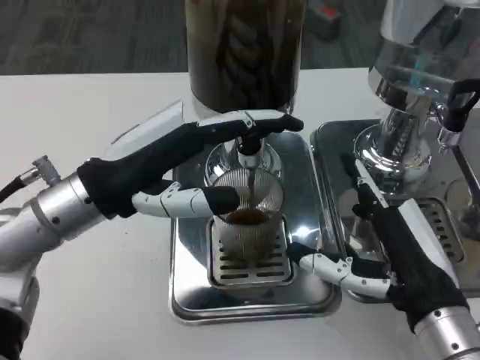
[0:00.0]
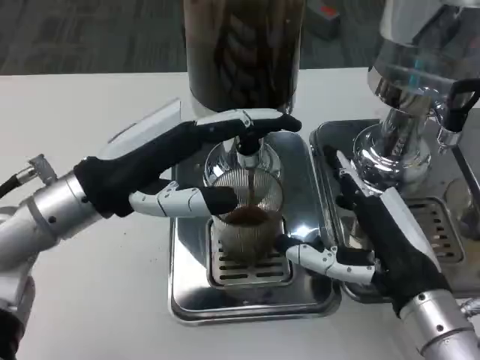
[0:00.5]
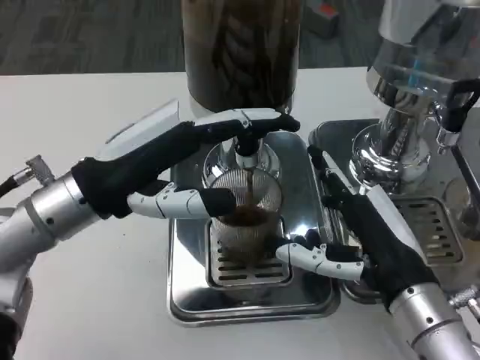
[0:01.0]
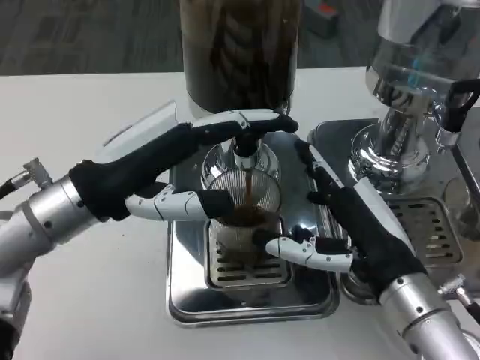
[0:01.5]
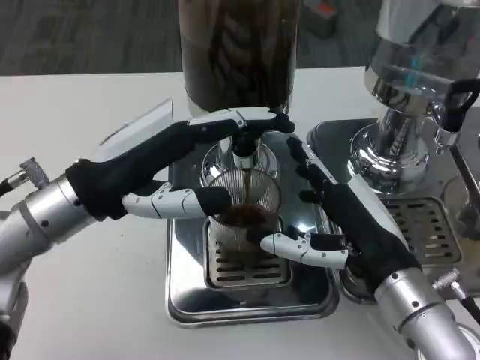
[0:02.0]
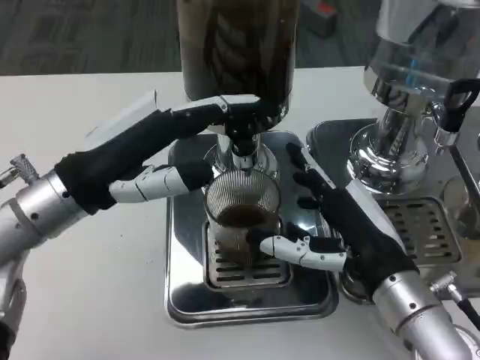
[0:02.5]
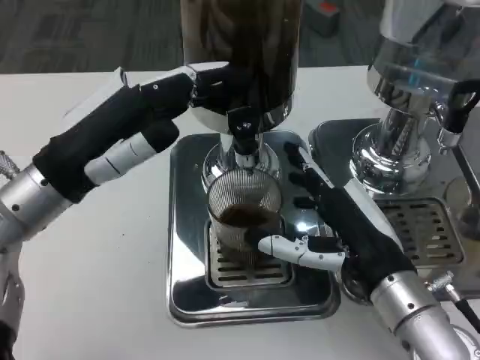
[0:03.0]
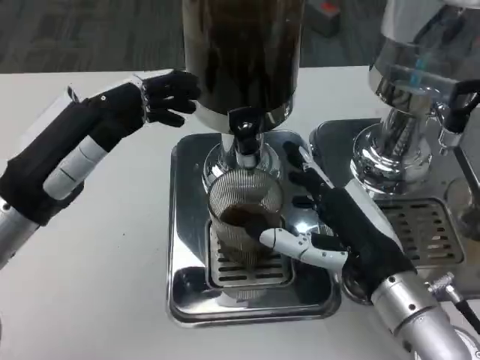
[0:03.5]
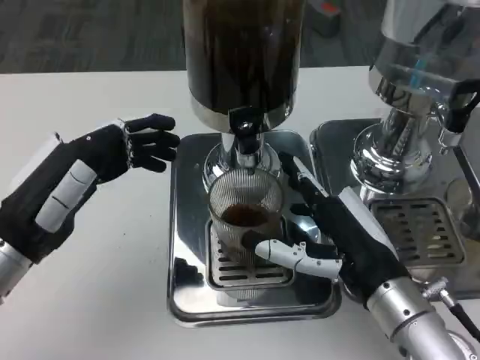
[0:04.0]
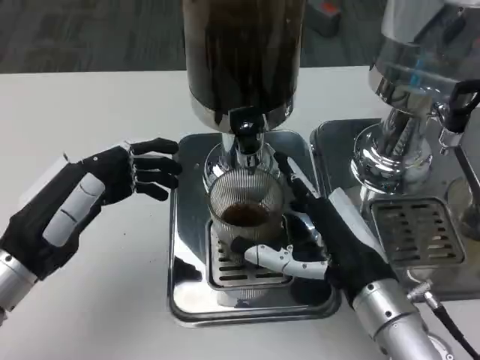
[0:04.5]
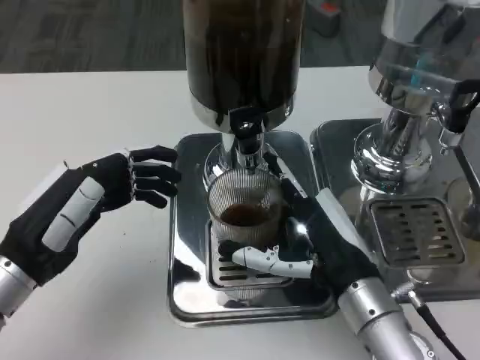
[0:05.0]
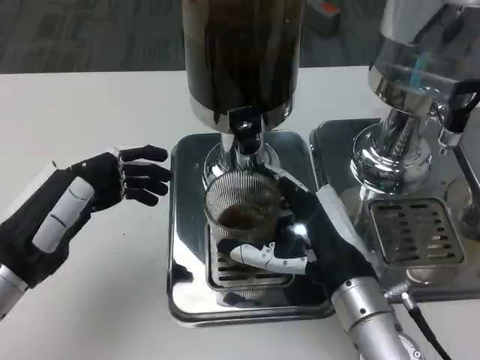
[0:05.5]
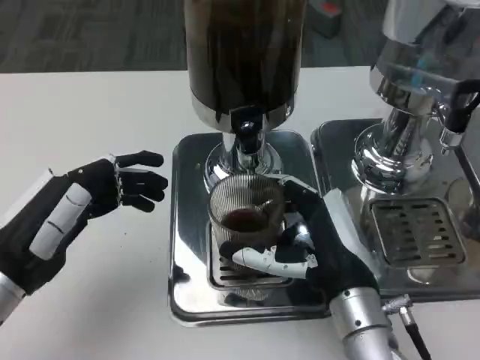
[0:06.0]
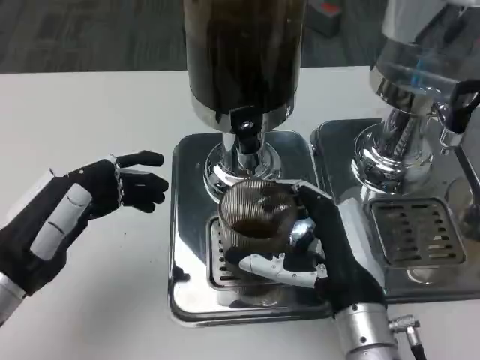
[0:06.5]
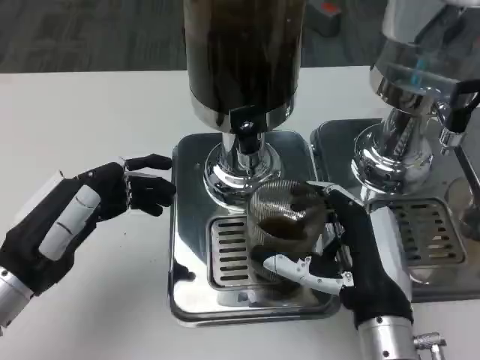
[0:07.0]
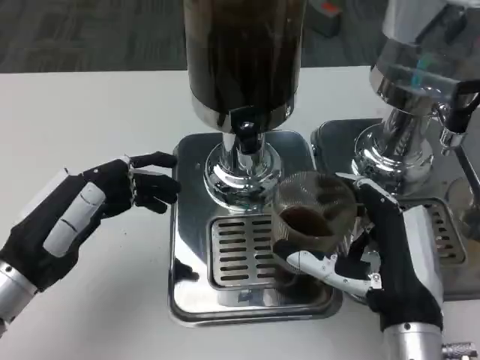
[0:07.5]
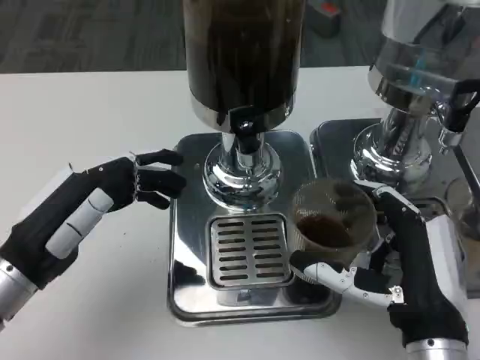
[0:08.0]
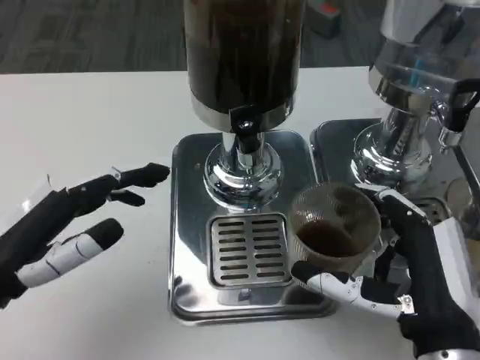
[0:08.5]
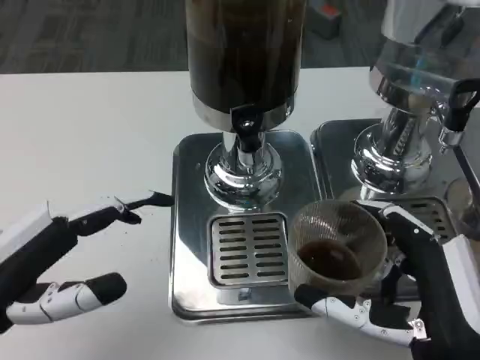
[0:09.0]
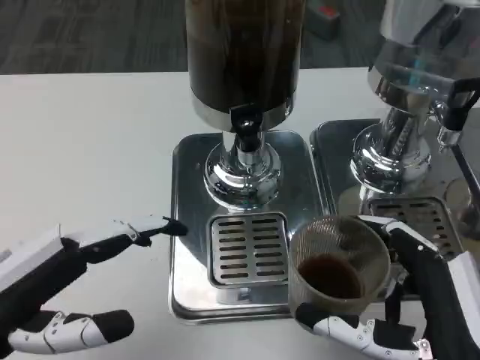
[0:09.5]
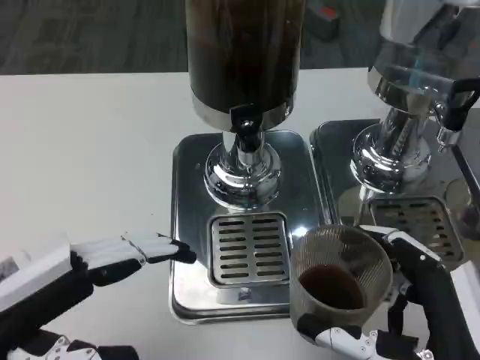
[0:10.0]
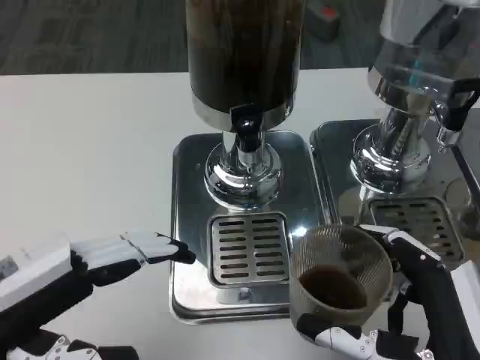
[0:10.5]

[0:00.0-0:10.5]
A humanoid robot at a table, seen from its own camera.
Task of the whole recording: Grasp the cup under the faucet to collect the drink, then remove the cup.
0:02.0 to 0:04.0: The left hand shifts approximately 5 cm to the left and downward.
0:04.0 to 0:06.5: The right hand shifts by about 5 cm.
0:06.5 to 0:08.5: The right hand heads backward, covering about 5 cm.
0:08.5 to 0:10.5: The right hand shifts about 5 cm backward.

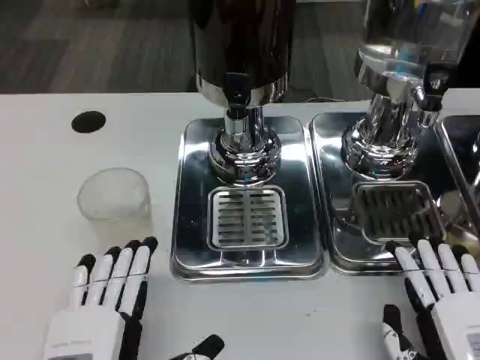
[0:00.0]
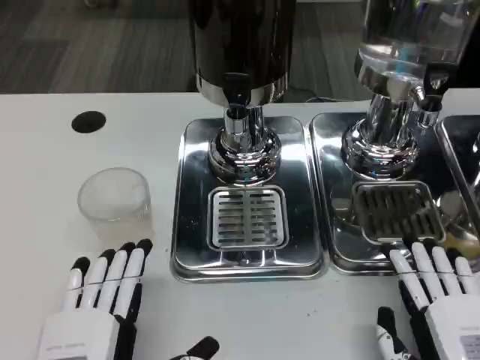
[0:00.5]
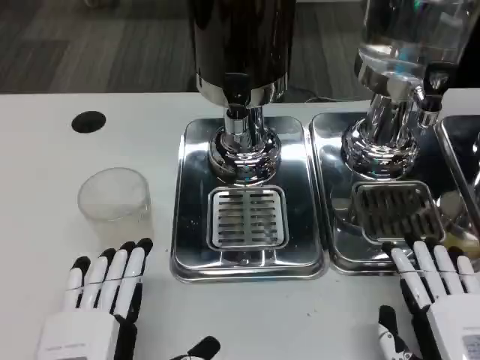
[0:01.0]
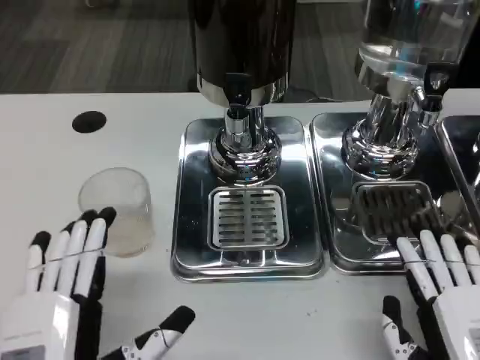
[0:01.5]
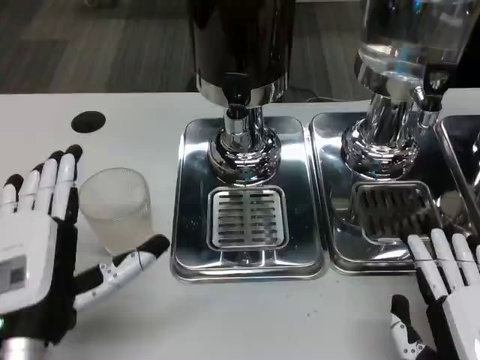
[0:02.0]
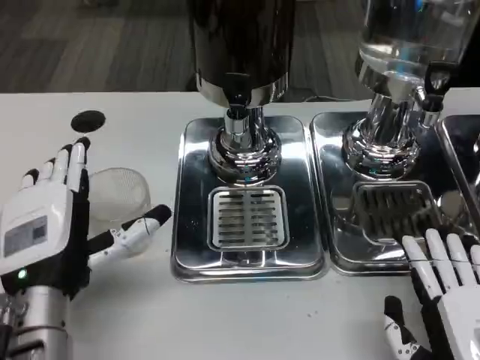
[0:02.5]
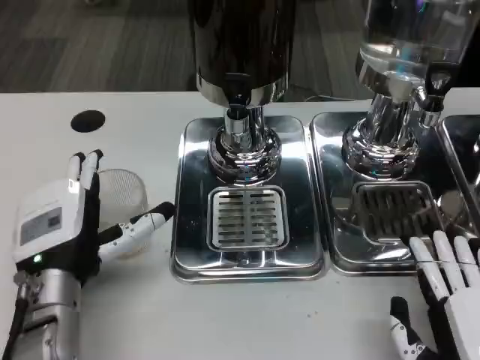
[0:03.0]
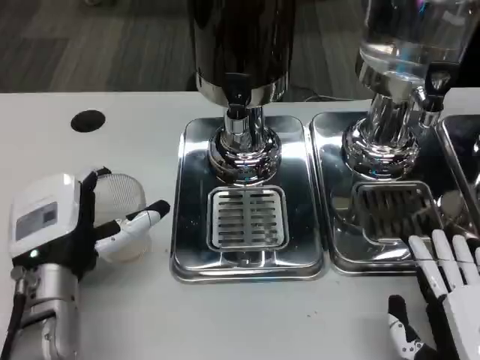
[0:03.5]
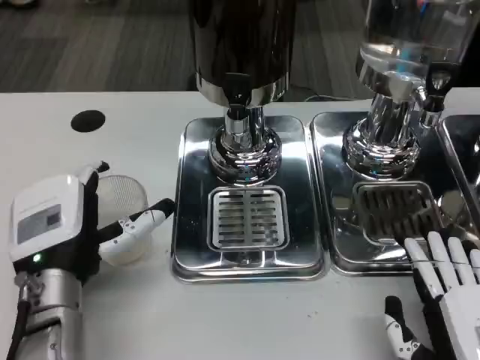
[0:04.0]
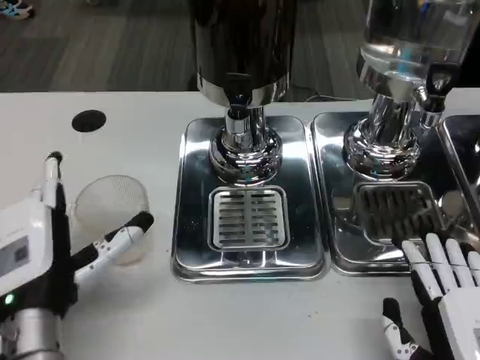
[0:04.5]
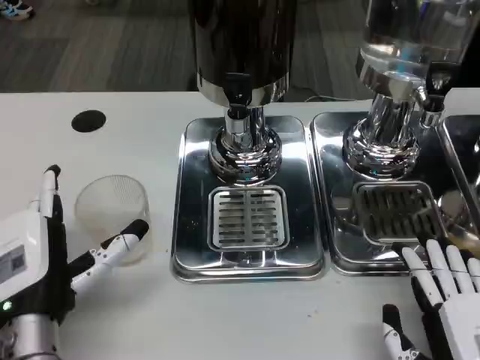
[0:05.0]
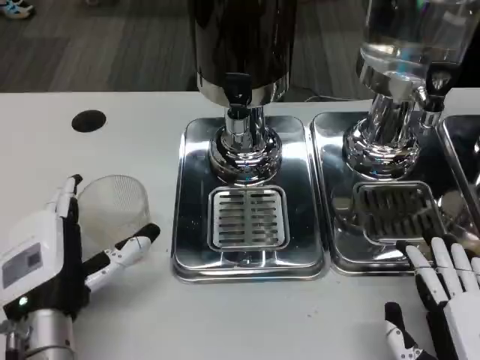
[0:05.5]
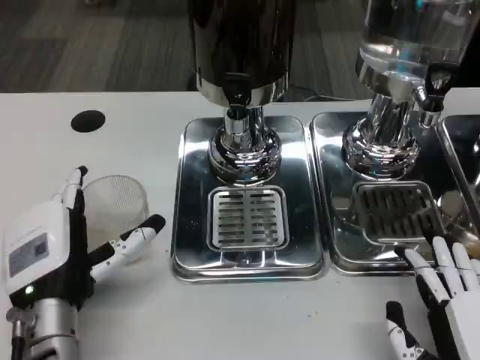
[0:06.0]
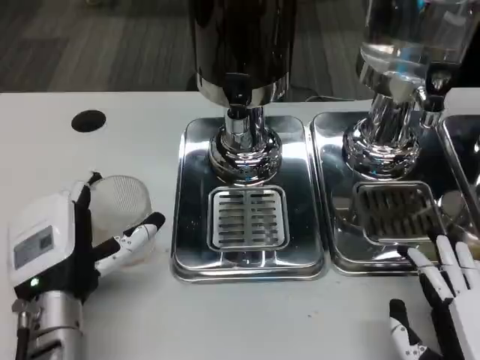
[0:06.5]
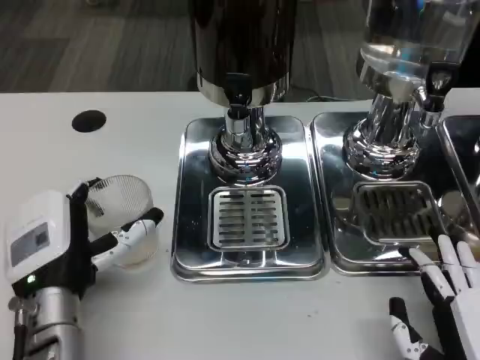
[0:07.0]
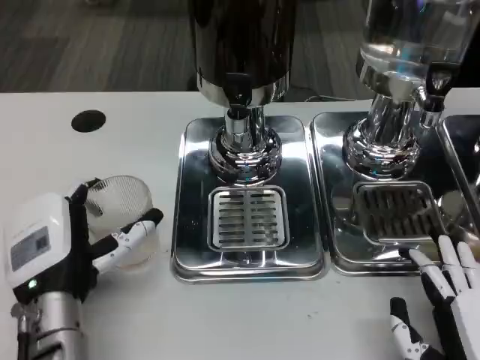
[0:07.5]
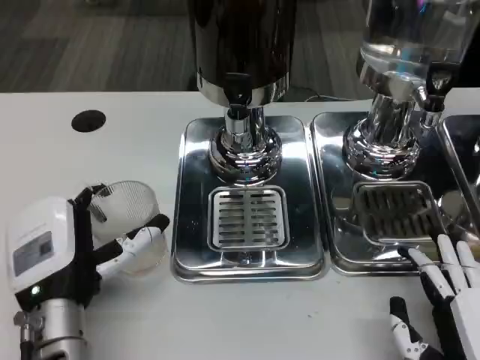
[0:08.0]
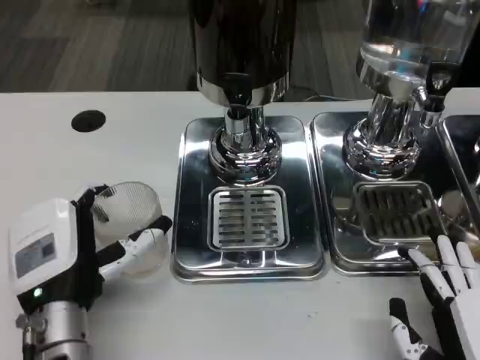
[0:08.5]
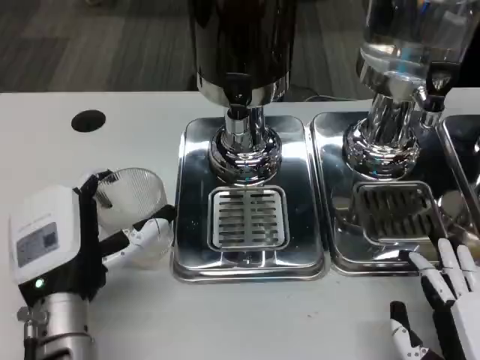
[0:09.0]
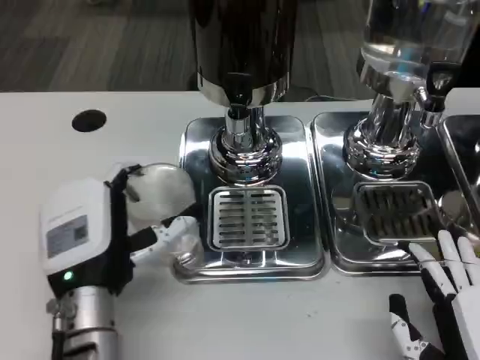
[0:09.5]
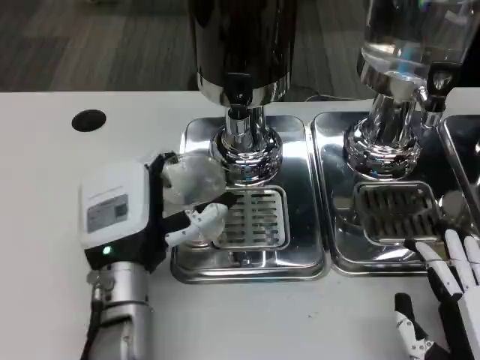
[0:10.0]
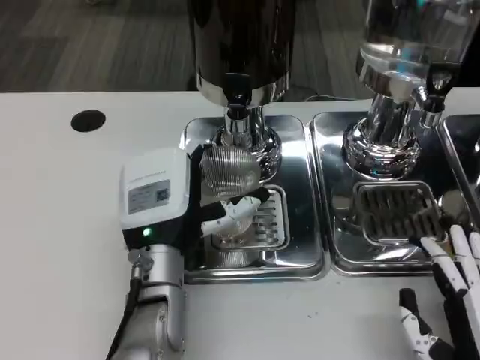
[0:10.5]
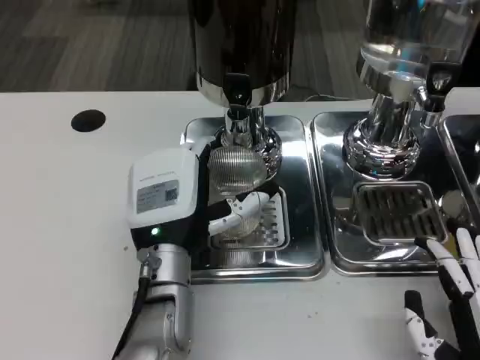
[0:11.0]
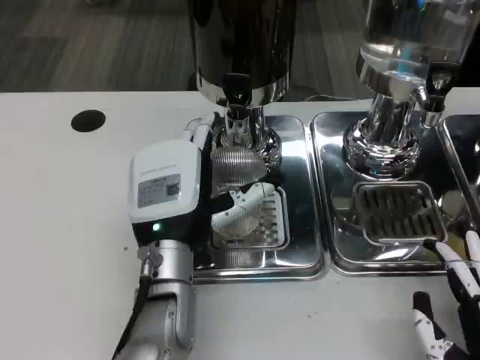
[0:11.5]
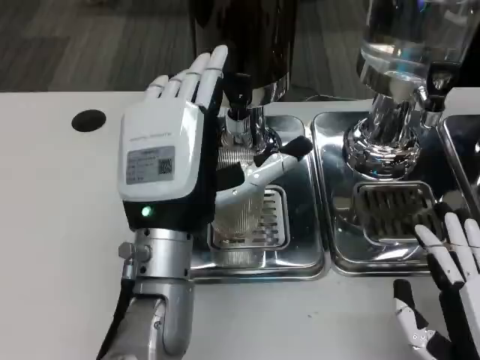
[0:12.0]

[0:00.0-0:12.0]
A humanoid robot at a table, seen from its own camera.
Task of the whole recording: Grasp the cup under the faucet to collect the drink, then remove the cup.
0:00.0 to 0:02.0: The left hand is displaced forward by roughly 5 cm.
0:02.0 to 0:04.0: The left hand is displaced forward by some 5 cm.
0:04.0 to 0:06.0: The hands stay close to where they were, moving slightly.
0:06.0 to 0:08.0: Neither hand changes place.
0:08.0 to 0:10.0: The left hand shifts approximately 5 cm to the right.
0:10.0 to 0:12.0: The left hand heads upward, covering some 5 cm.

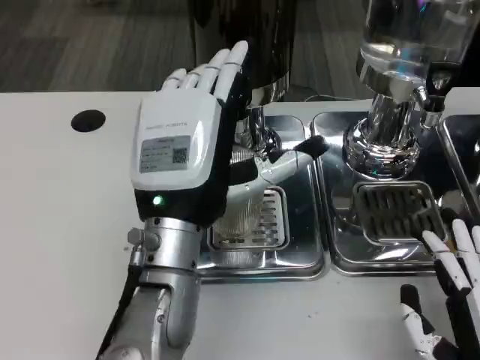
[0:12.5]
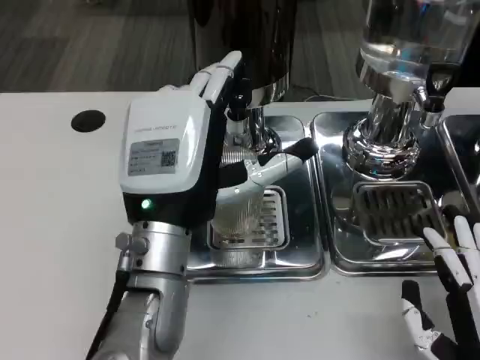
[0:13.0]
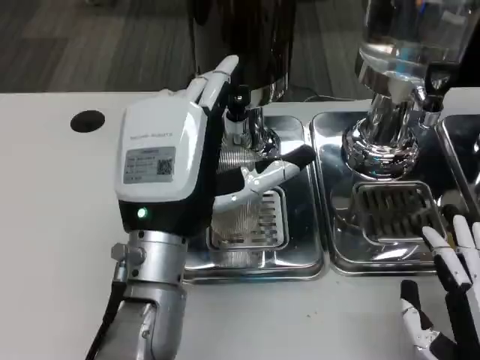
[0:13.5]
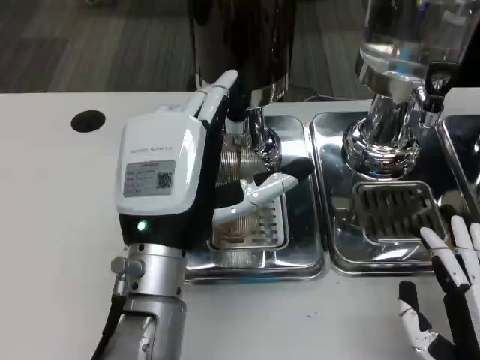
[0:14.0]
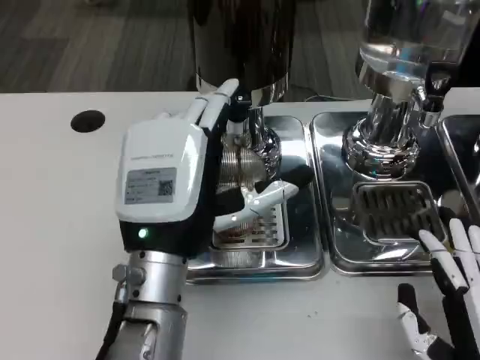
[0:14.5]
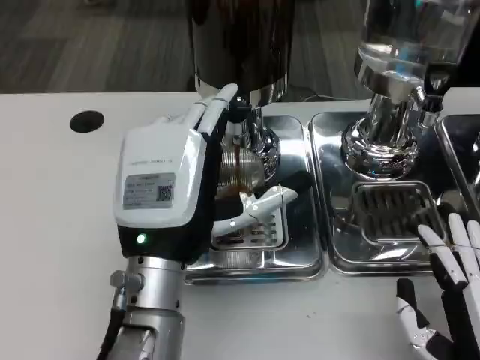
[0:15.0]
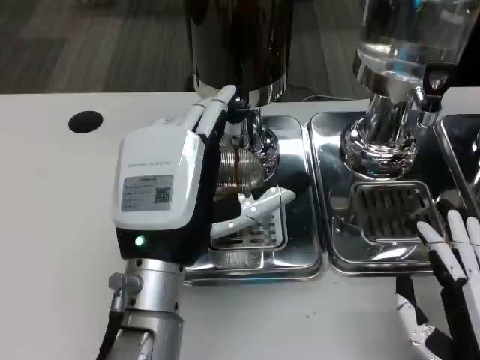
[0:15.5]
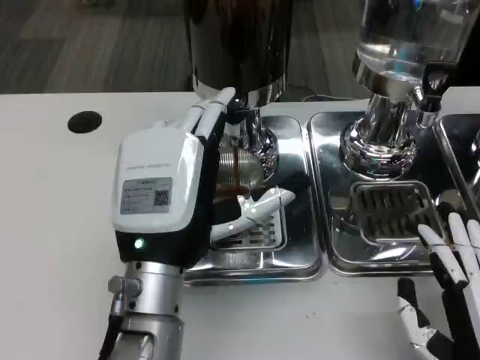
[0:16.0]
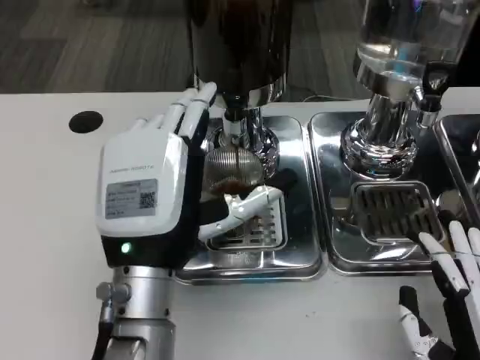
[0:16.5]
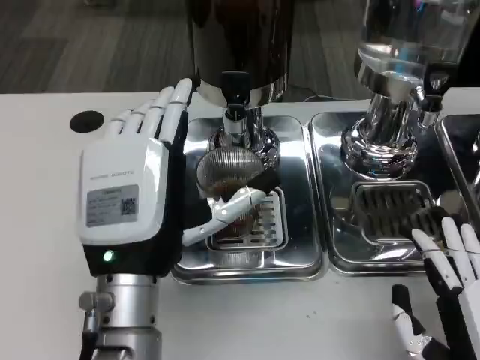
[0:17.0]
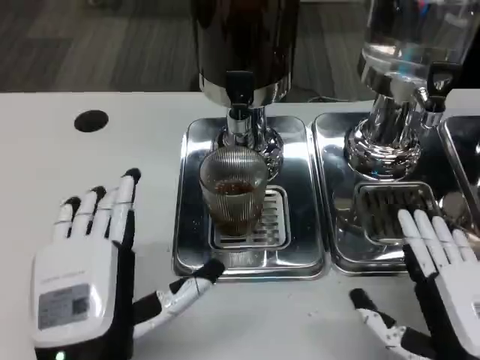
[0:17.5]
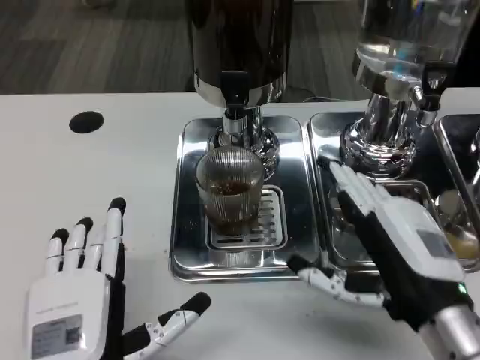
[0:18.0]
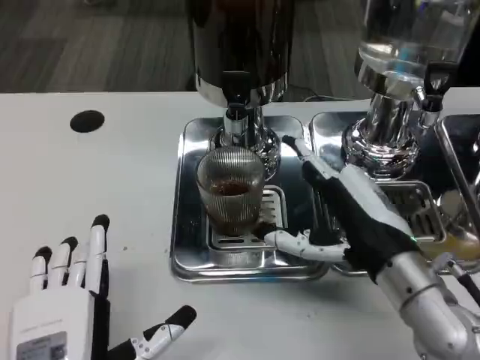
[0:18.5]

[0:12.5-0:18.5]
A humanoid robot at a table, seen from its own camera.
Task of the whole recording: Grasp the cup under the faucet to collect the drink, then remove the cup.
0:12.5 to 0:14.5: The hands move only a little.
0:14.5 to 0:16.5: Neither hand changes place.
0:16.5 to 0:18.5: The right hand is displaced forward, upward and to the left by approximately 15 cm. The left hand shifts roughly 15 cm backward, downward and to the left.
